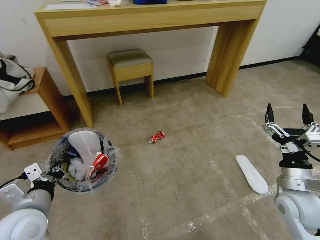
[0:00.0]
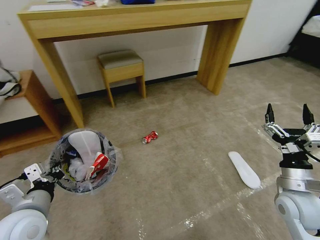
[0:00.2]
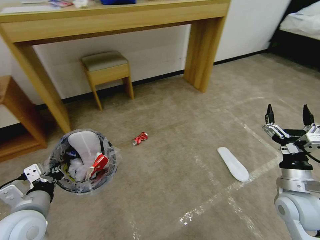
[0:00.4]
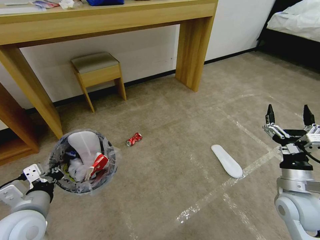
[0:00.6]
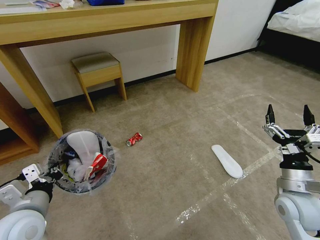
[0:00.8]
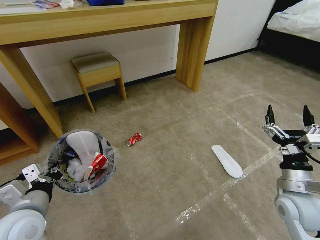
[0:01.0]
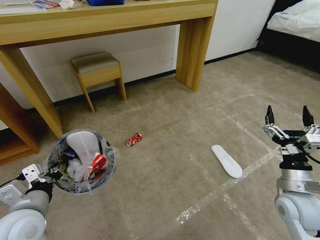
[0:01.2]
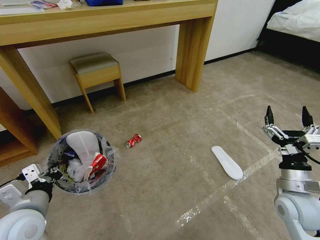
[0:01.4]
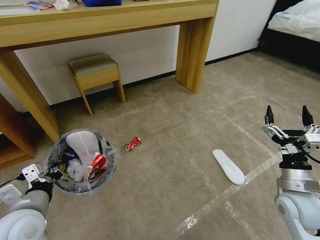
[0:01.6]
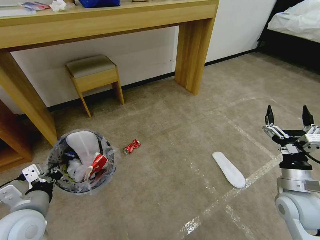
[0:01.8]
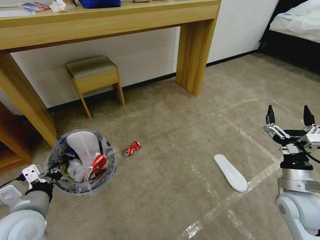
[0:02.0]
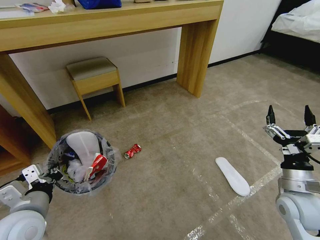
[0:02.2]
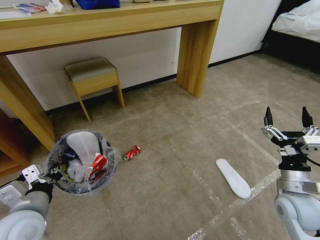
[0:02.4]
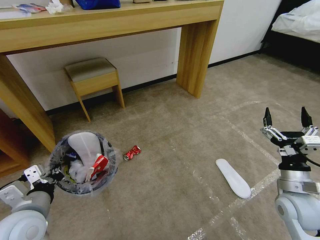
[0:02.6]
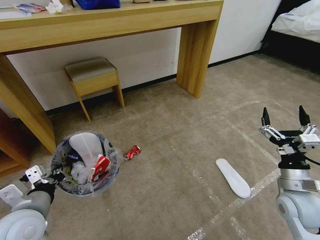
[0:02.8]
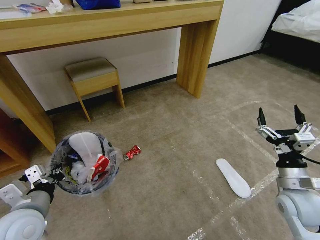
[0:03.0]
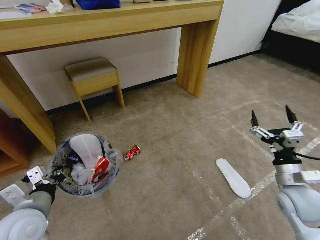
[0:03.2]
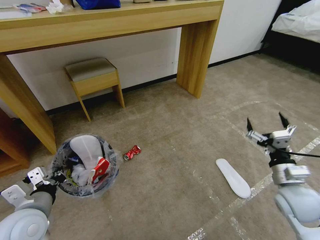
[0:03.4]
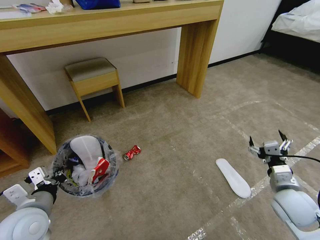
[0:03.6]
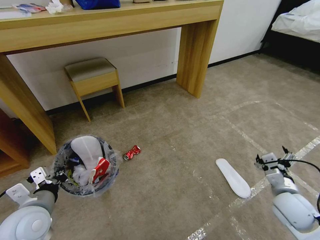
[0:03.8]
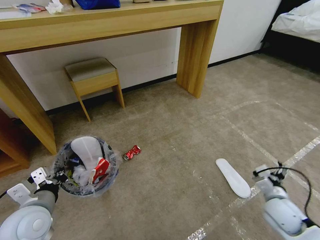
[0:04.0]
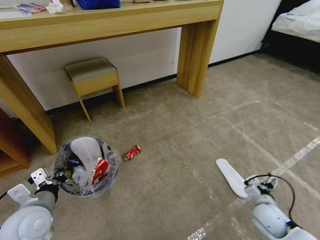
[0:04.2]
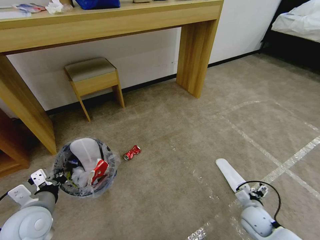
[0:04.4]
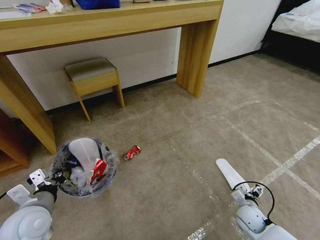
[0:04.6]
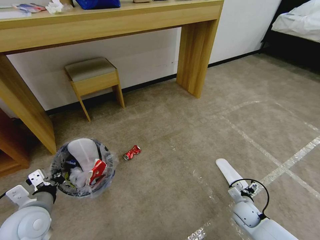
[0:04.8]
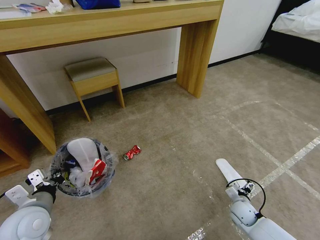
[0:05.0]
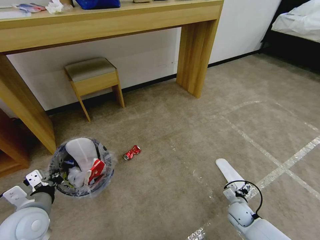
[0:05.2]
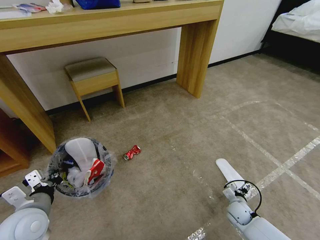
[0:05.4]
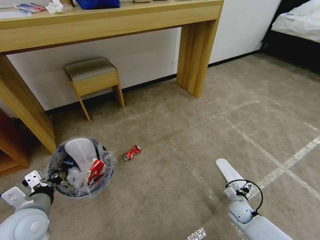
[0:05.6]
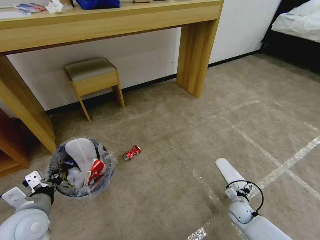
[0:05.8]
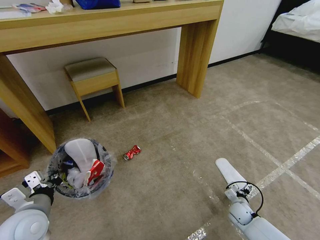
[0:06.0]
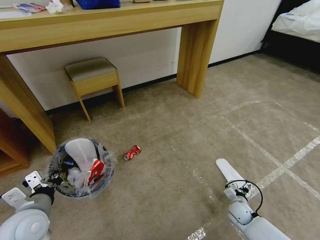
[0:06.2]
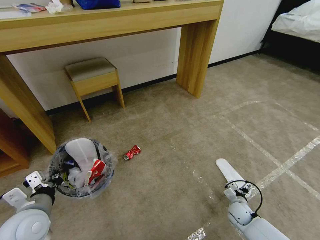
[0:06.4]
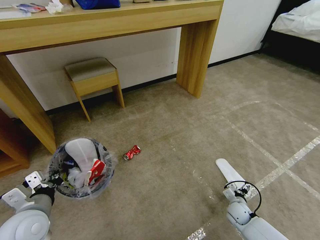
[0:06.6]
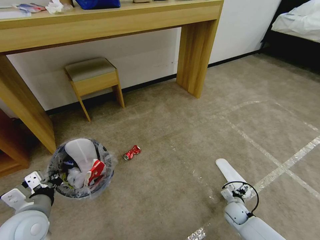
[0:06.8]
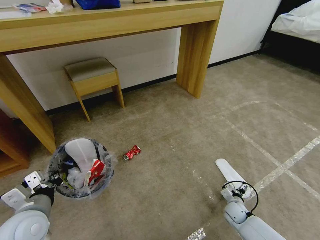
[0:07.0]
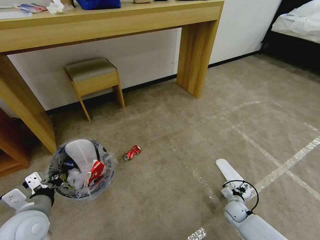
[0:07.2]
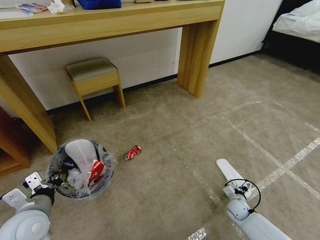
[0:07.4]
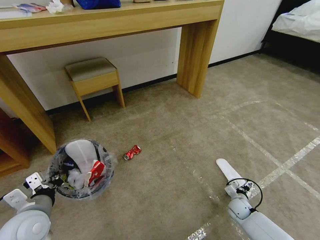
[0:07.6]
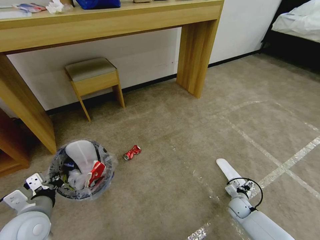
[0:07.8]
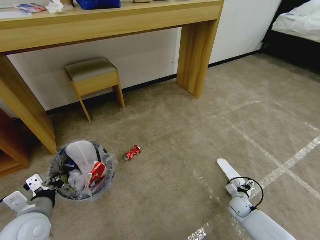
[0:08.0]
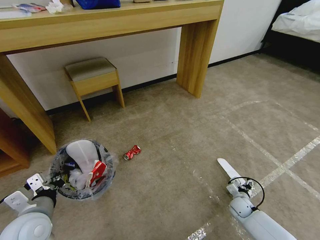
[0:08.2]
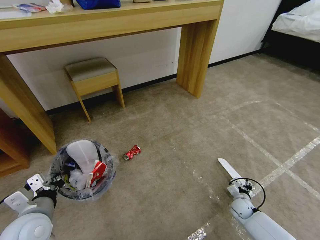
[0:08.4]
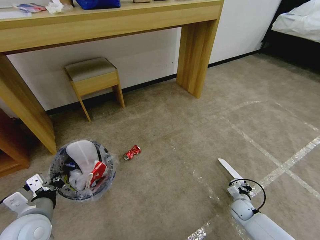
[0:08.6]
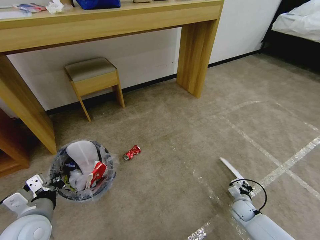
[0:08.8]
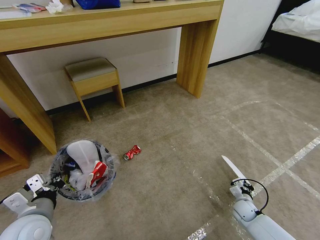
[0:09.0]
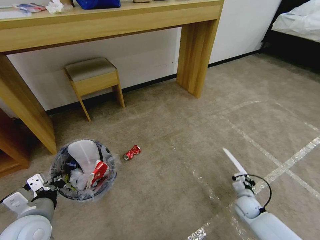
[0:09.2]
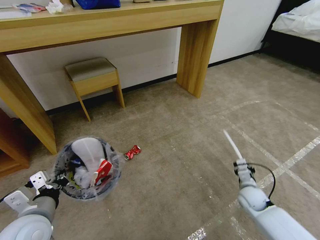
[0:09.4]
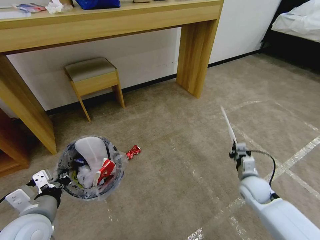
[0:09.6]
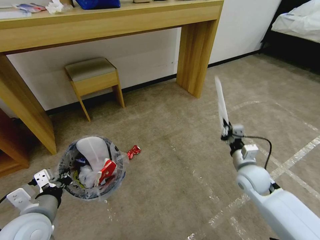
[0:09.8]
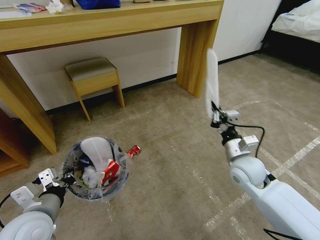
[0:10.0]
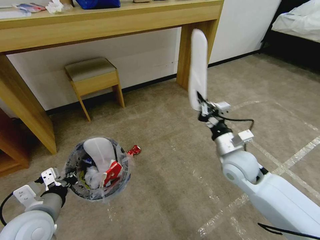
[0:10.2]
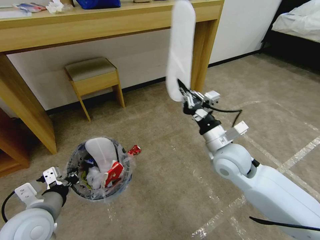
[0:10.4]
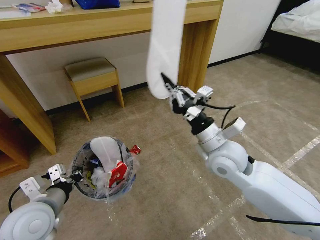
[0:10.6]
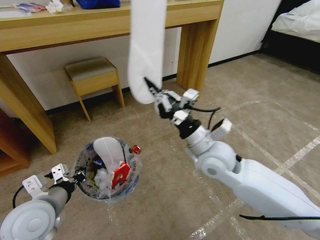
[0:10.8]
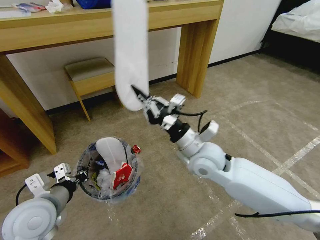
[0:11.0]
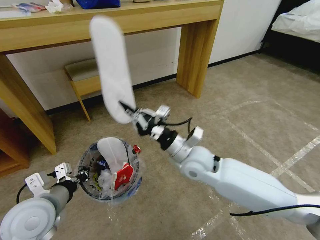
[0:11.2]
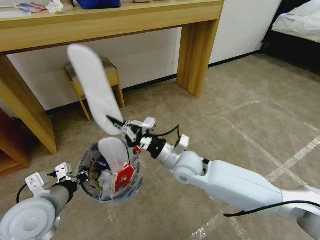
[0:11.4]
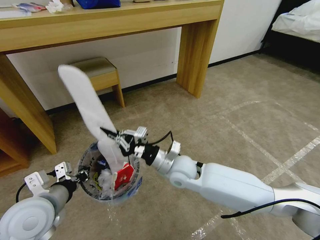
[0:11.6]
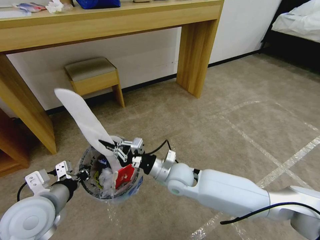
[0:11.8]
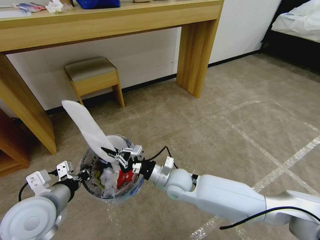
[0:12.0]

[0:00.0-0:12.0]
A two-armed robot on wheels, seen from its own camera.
Task of the whole recording: Pick up the trash bin and place the garbage on the floor into it.
0:03.0 to 0:04.4: The right gripper is displaced downward by some 20 cm.
0:04.4 to 0:06.0: The right gripper goes some 10 cm downward.
0:06.0 to 0:07.6: The grippers stay close to where they were, moving slightly.
0:07.6 to 0:09.0: The right gripper closes up.
0:09.0 to 0:10.4: The right gripper shifts approximately 40 cm upward and to the left.
0:10.4 to 0:12.0: The right gripper travels downward and to the left by some 20 cm.

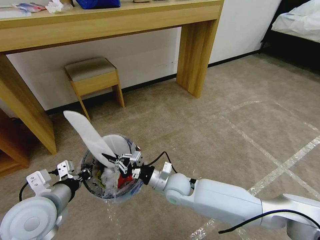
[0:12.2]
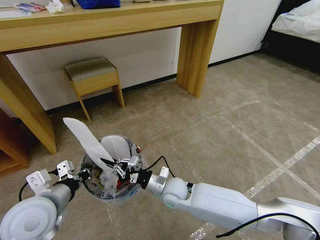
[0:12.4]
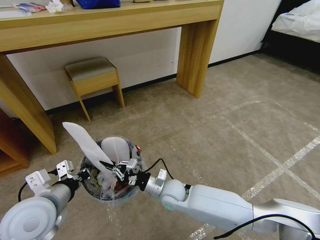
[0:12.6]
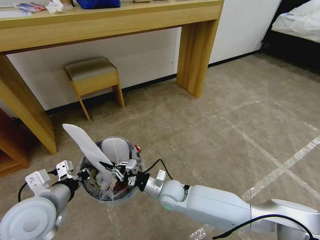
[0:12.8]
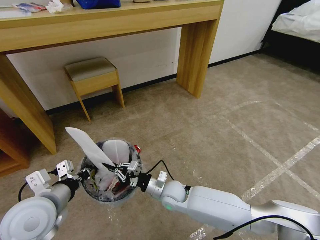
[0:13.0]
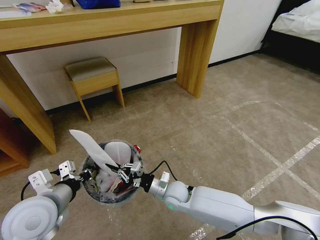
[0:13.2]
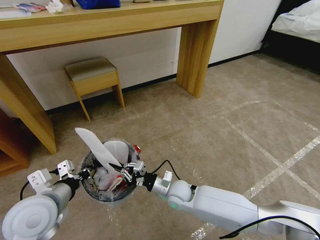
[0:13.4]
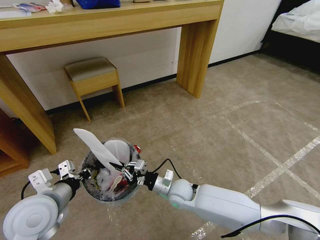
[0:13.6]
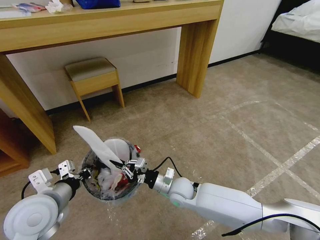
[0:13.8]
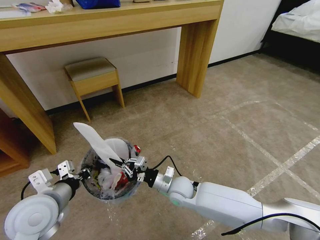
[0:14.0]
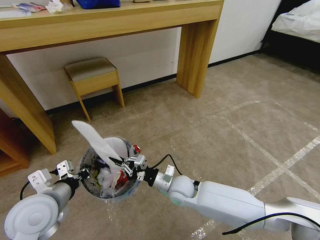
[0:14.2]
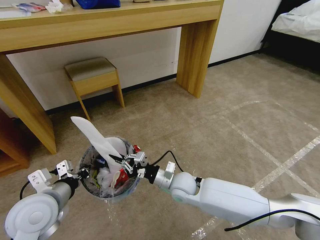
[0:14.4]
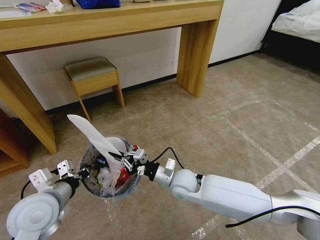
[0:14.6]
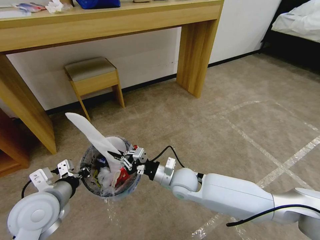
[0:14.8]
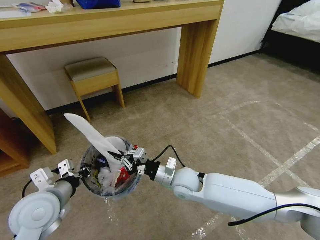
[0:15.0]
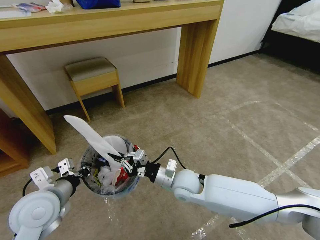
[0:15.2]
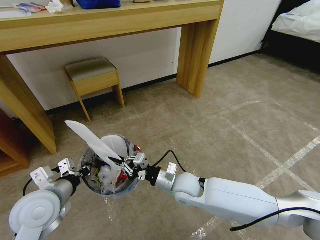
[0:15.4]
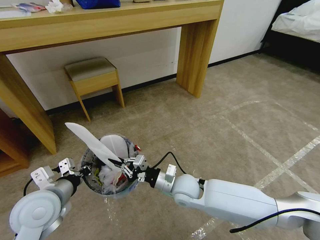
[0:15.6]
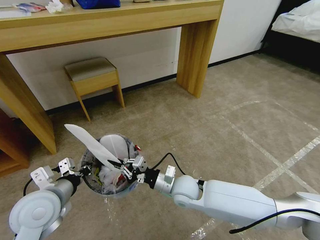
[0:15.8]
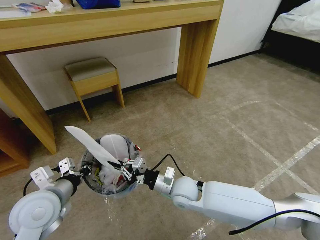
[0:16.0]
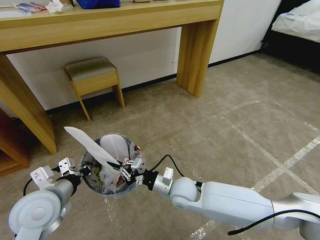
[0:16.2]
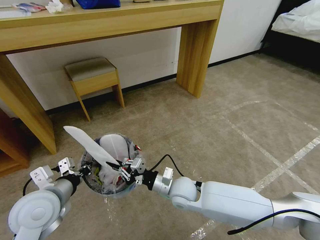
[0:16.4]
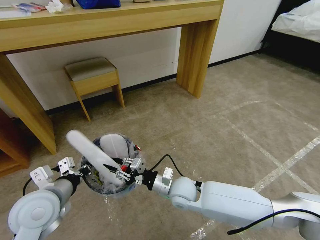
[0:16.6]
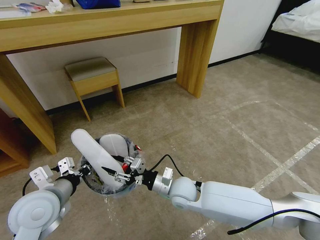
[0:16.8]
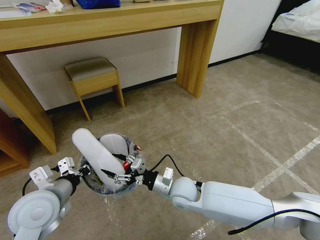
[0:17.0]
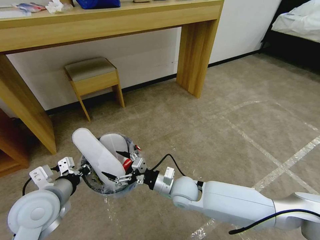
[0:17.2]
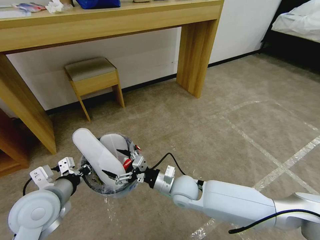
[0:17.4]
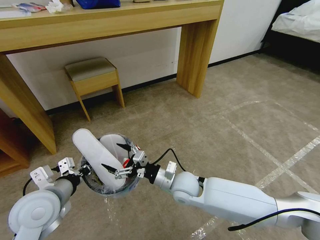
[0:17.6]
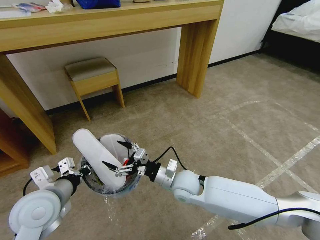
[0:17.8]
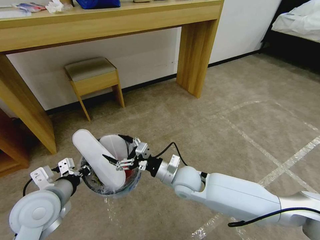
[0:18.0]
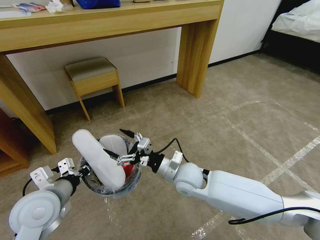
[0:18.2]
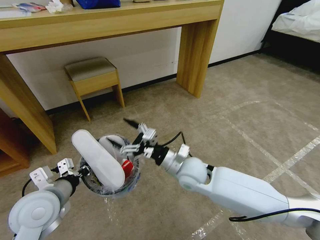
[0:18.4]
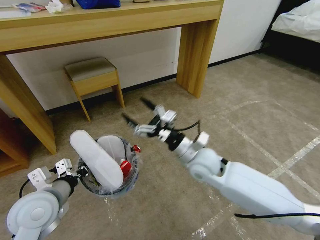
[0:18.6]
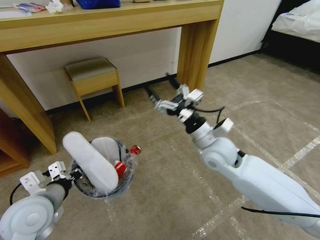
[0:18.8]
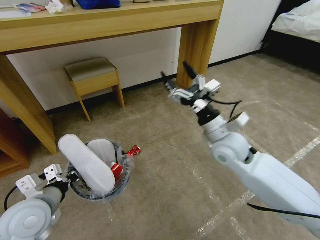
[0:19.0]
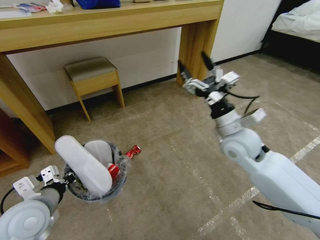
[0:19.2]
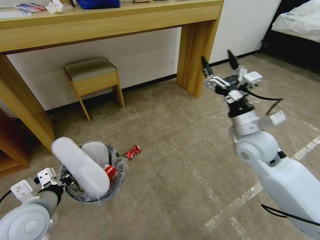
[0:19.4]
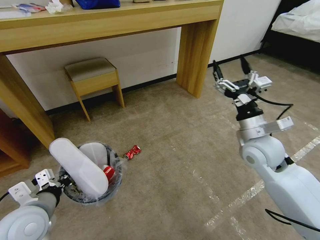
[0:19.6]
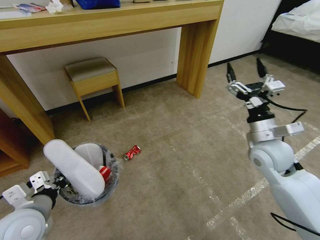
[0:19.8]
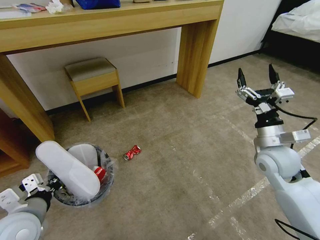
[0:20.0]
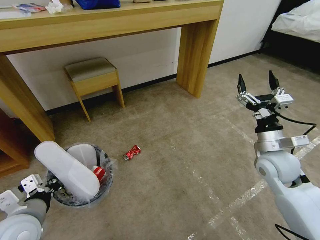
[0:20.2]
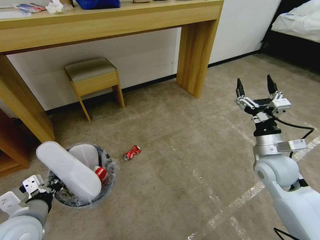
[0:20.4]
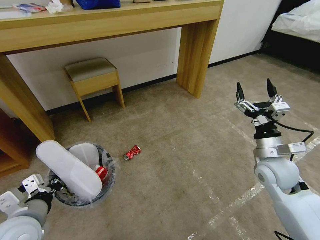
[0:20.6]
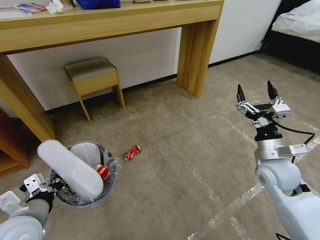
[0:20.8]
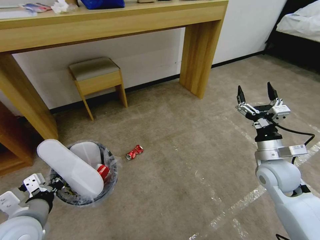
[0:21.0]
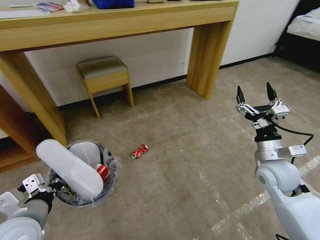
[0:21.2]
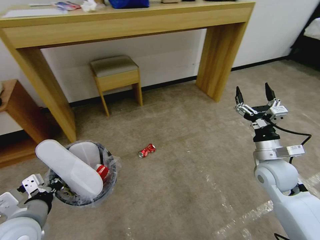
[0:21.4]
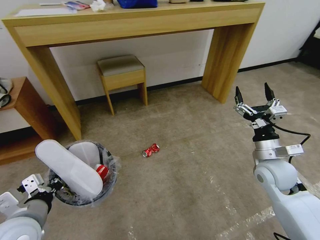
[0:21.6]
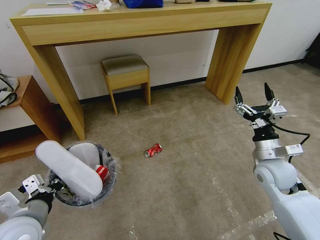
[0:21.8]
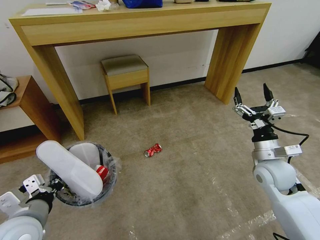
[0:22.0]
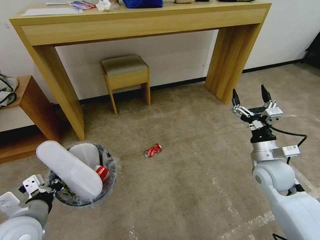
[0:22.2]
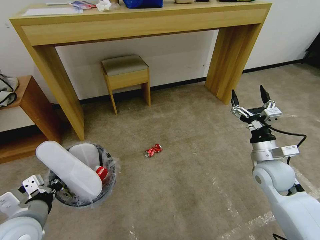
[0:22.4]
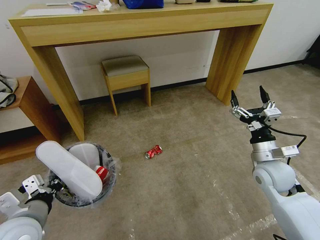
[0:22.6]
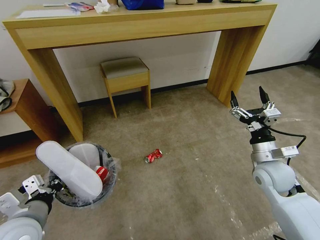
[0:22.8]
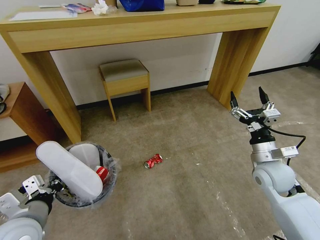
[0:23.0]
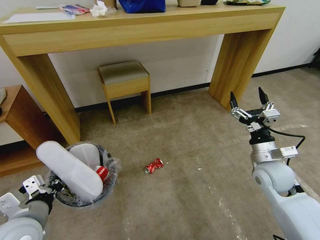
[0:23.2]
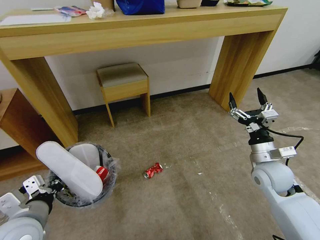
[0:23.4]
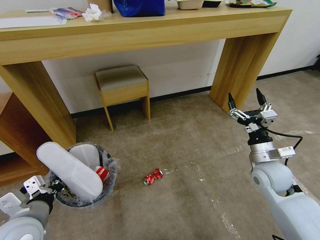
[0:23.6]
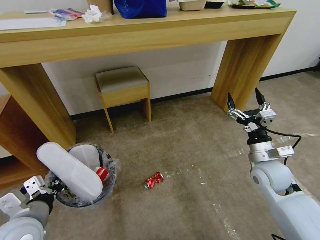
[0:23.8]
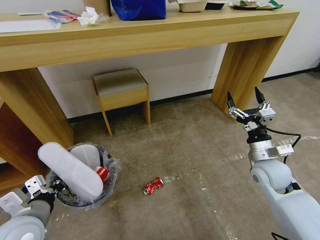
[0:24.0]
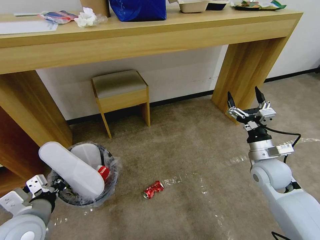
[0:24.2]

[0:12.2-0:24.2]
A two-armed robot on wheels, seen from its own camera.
Task of the whole recording: Pick up the trash bin and place the garbage on the floor into it.
0:12.2 to 0:13.8: The grippers stay close to where they were, moving slightly.
0:13.8 to 0:15.2: The right gripper heads upward, covering some 5 cm.
0:15.2 to 0:16.6: There are only small adjustments of the grippers.
0:16.6 to 0:18.2: The right gripper heads upward, covering some 5 cm, and opens its fingers.
0:18.2 to 0:19.8: The right gripper moves to the right and upward, about 25 cm.
0:19.8 to 0:21.2: The right gripper travels downward by about 5 cm.
